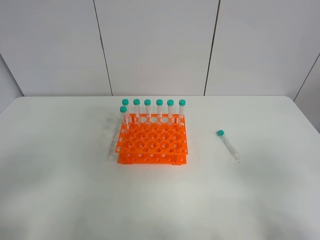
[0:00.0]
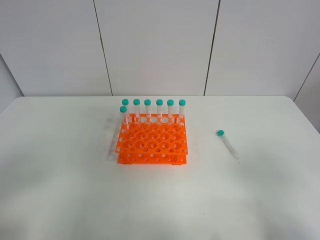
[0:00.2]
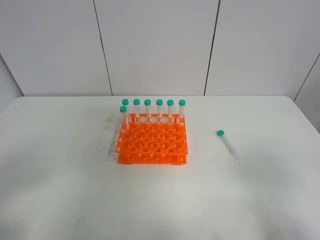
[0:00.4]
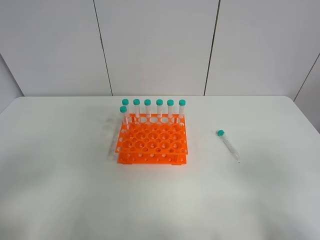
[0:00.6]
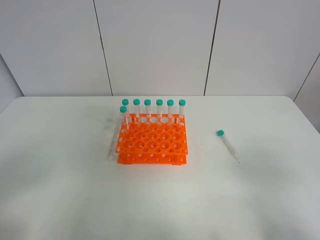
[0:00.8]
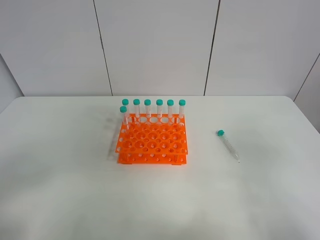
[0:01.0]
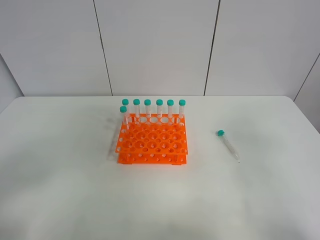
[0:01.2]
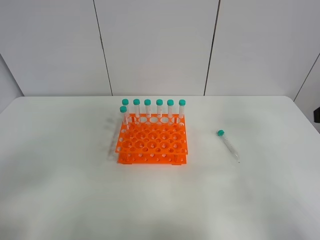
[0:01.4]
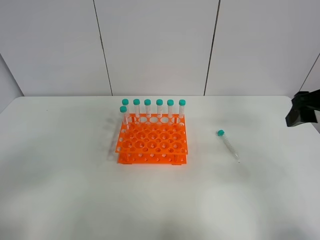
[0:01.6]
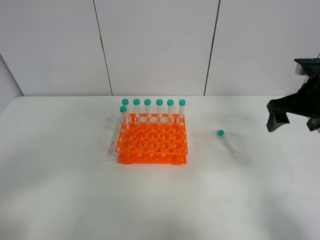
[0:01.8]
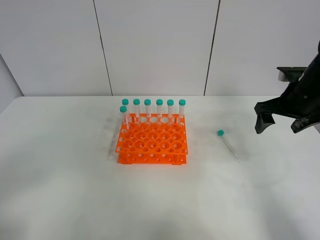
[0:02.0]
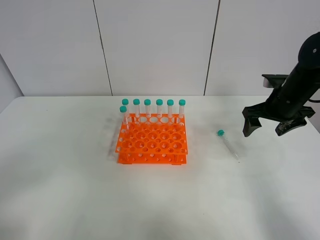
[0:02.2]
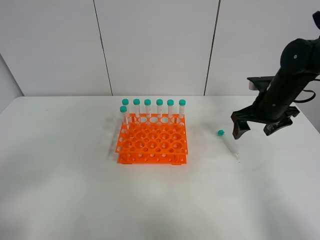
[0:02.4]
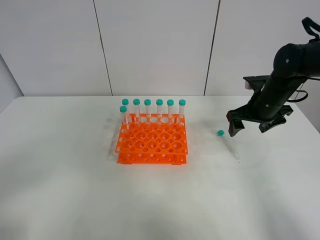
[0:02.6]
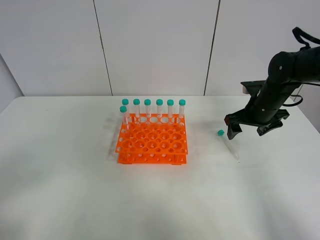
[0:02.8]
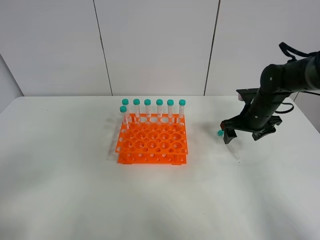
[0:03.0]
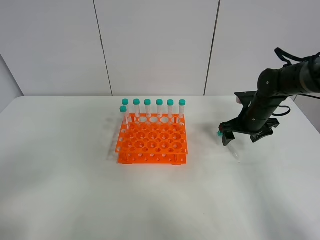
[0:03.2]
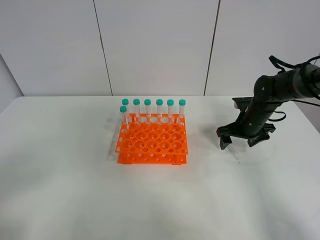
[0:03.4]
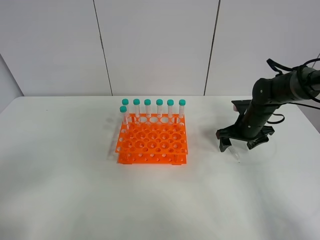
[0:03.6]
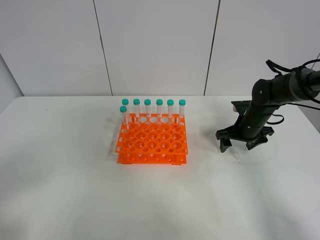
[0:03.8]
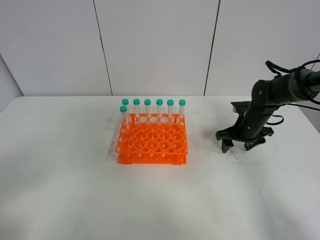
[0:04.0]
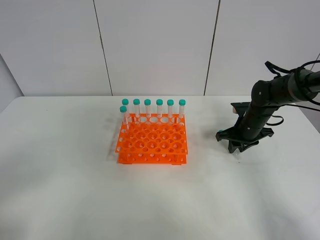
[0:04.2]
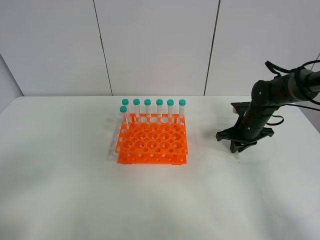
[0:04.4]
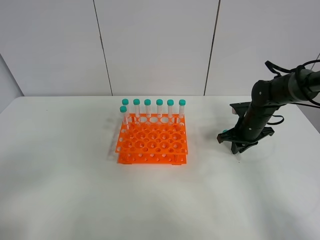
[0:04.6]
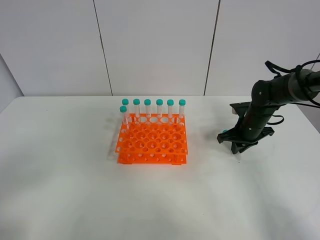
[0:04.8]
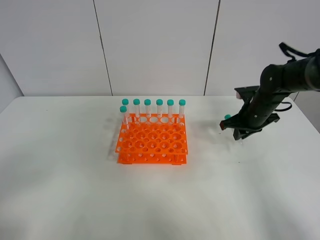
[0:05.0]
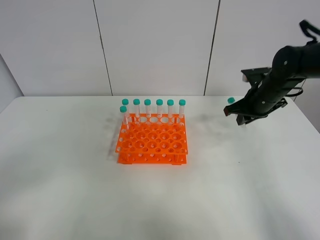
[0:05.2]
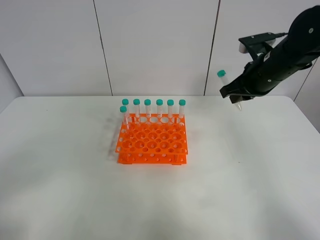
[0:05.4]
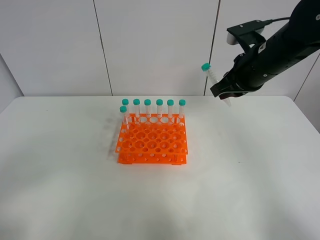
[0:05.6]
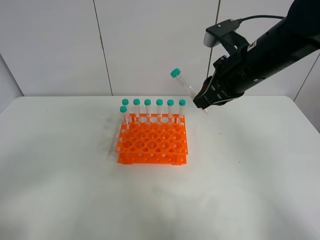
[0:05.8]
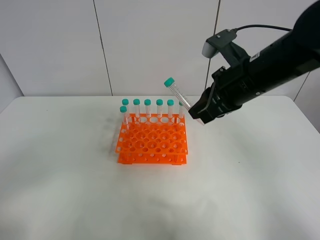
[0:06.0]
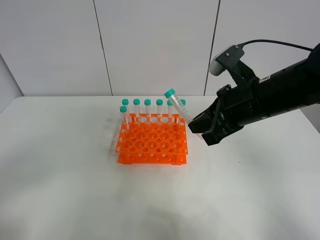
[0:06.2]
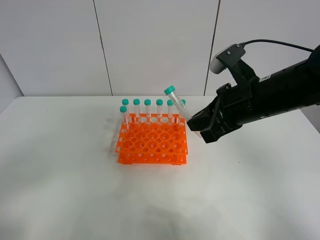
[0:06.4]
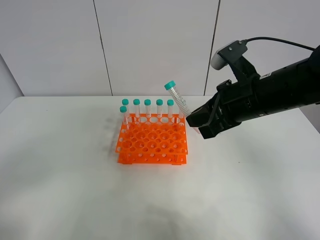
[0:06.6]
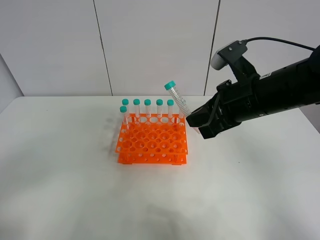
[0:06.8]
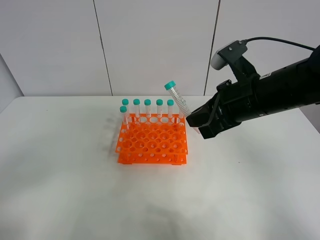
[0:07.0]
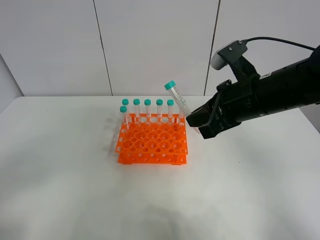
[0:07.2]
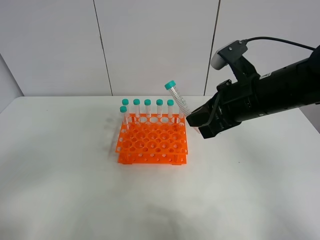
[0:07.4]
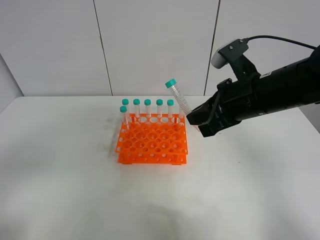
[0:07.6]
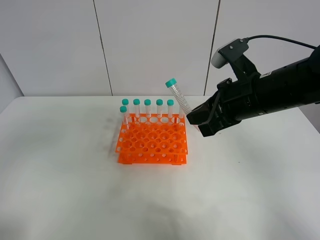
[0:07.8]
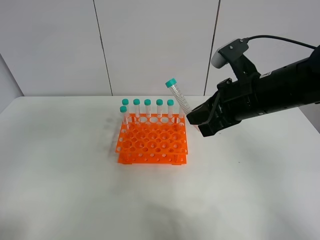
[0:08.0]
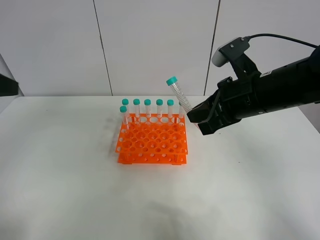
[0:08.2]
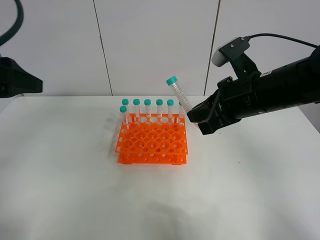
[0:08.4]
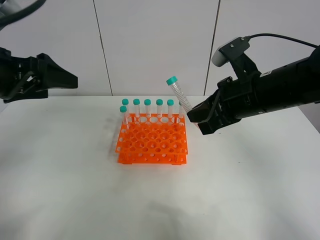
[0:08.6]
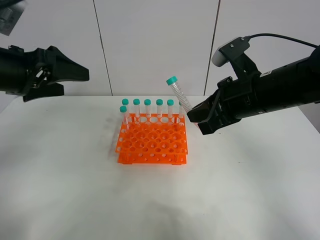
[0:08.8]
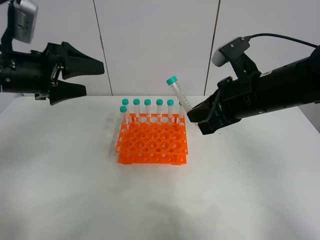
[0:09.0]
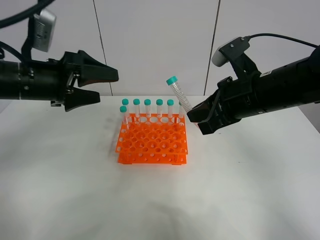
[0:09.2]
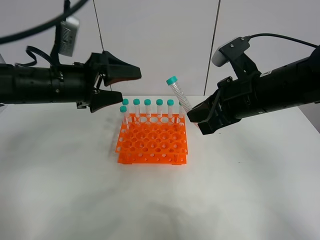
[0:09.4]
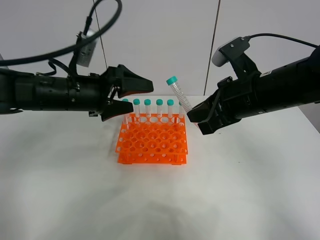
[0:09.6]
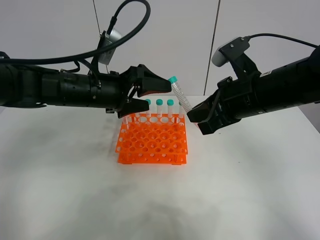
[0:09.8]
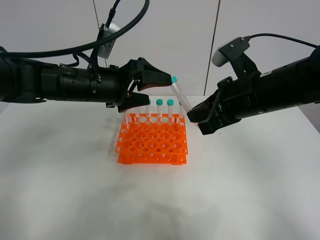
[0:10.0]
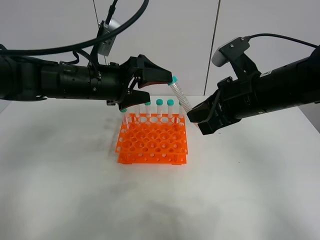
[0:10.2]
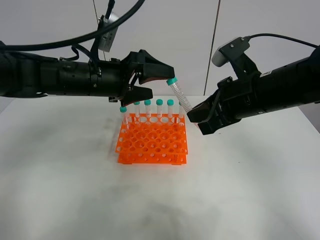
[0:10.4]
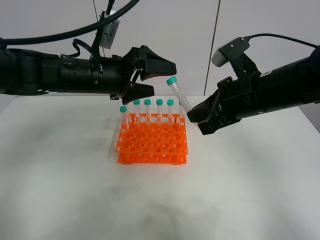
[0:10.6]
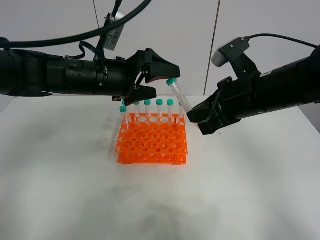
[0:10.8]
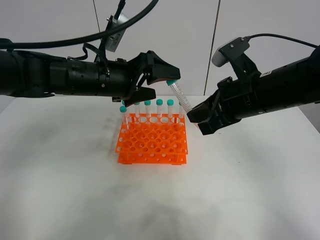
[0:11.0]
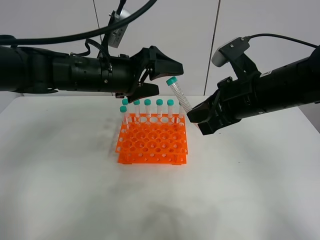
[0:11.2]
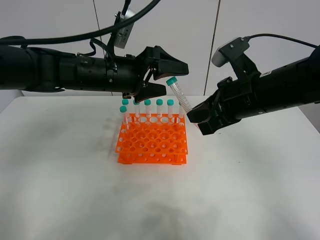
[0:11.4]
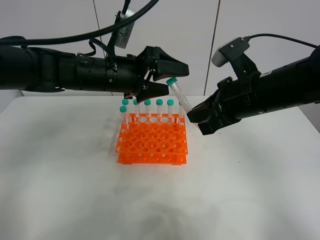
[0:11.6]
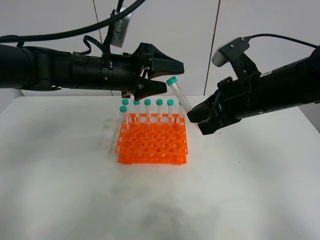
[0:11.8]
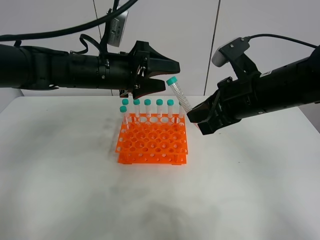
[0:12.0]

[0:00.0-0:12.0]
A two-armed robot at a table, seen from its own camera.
Task of the whole recording: Put the test tube on the table back onto the test tube rack.
Step, 0:00.0 to 0:05.2: Pick up the test tube with the right gripper.
0:00.0 to 0:01.6: The right gripper travels forward by some 25 cm.
0:01.6 to 0:03.0: The right gripper travels downward and forward by roughly 20 cm.
0:03.0 to 0:04.4: The right gripper closes its fingers.
0:04.4 to 0:06.0: The right gripper shifts about 25 cm upward, backward and to the left.
0:06.0 to 0:07.6: The grippers stay close to where they were, moving slightly.
0:07.6 to 0:09.0: The left gripper goes approximately 25 cm forward.
0:09.0 to 0:10.4: The left gripper goes about 10 cm to the right.
0:10.4 to 0:12.0: The left gripper closes up.

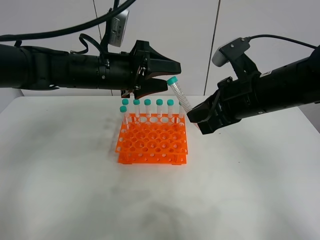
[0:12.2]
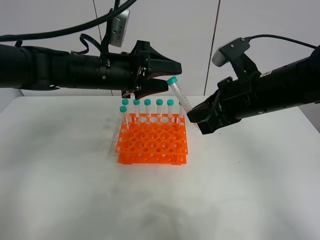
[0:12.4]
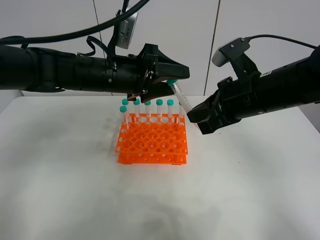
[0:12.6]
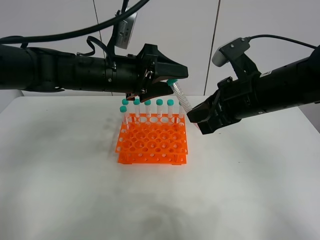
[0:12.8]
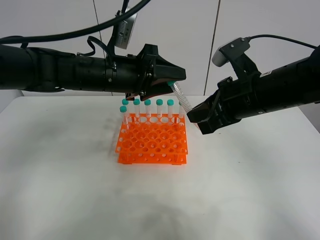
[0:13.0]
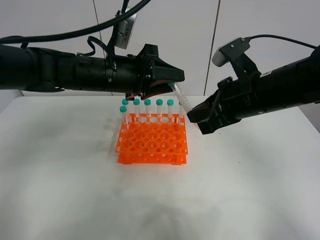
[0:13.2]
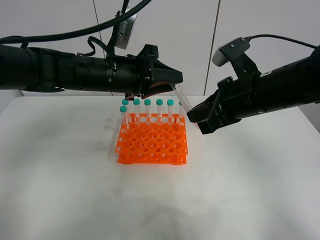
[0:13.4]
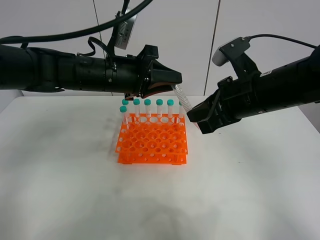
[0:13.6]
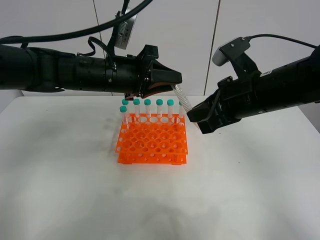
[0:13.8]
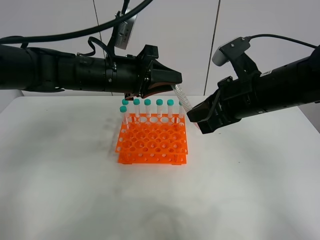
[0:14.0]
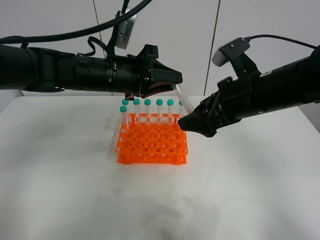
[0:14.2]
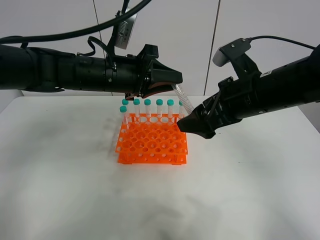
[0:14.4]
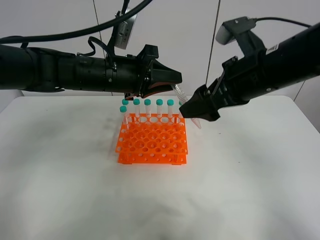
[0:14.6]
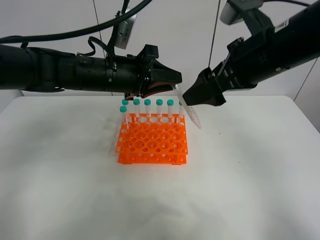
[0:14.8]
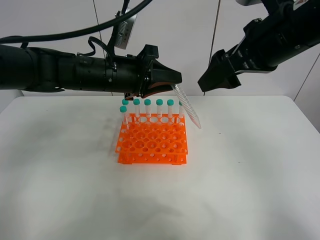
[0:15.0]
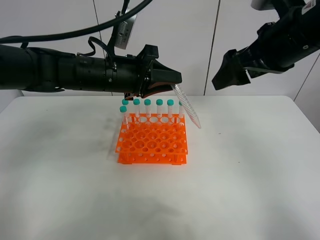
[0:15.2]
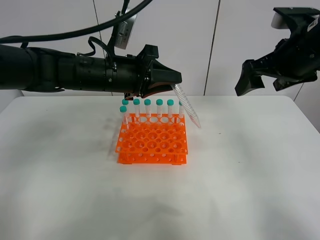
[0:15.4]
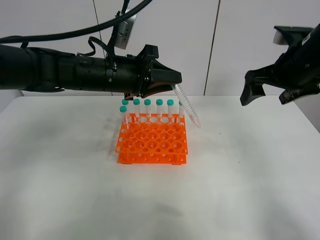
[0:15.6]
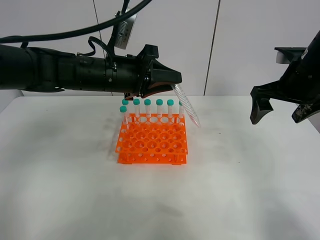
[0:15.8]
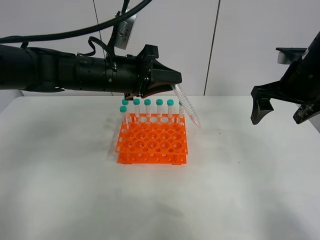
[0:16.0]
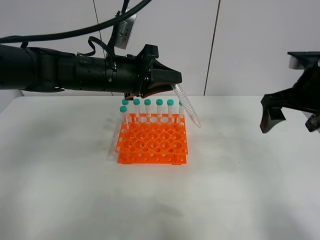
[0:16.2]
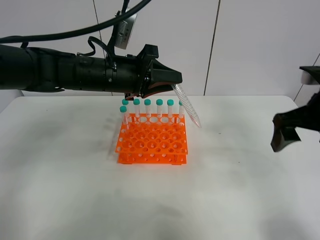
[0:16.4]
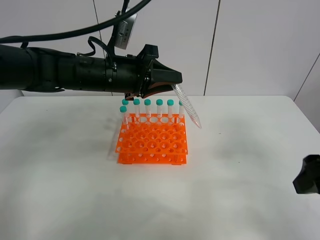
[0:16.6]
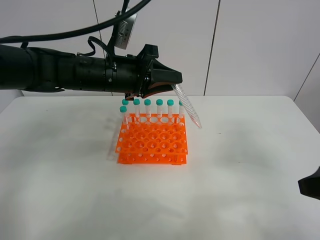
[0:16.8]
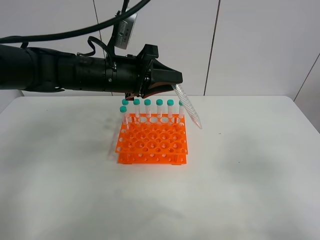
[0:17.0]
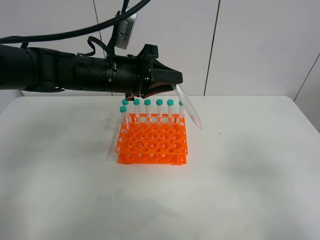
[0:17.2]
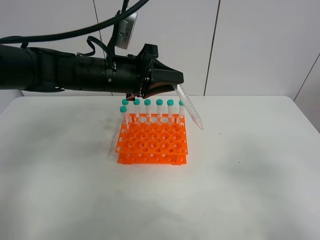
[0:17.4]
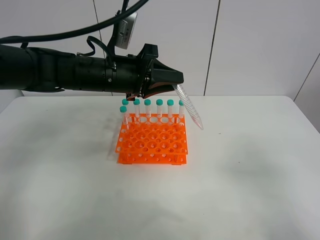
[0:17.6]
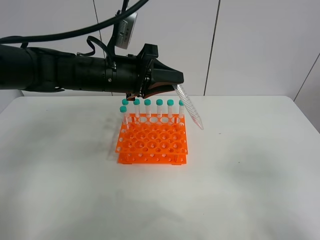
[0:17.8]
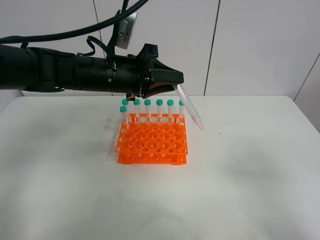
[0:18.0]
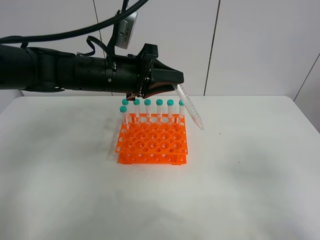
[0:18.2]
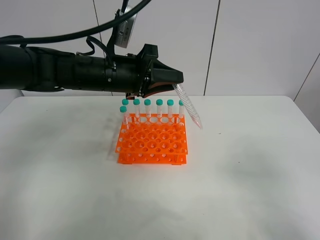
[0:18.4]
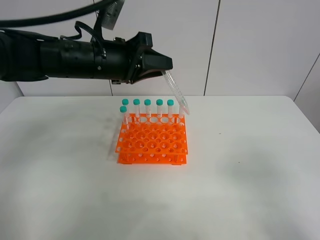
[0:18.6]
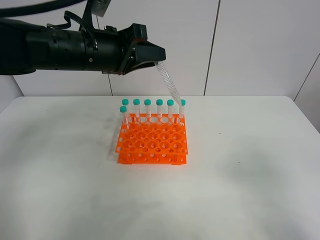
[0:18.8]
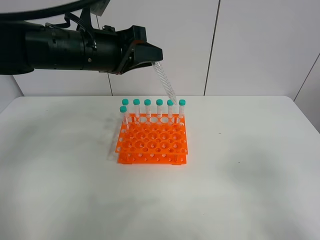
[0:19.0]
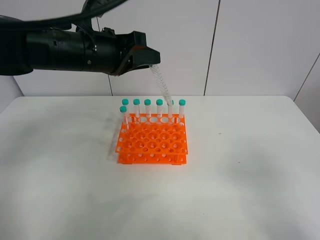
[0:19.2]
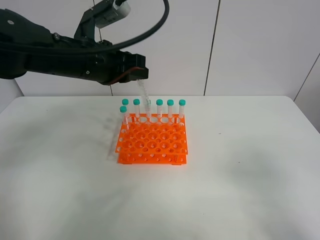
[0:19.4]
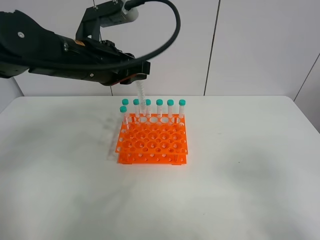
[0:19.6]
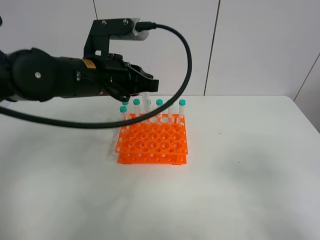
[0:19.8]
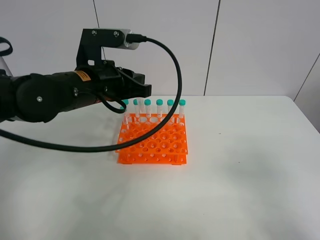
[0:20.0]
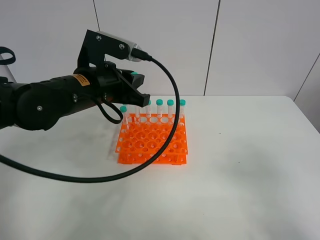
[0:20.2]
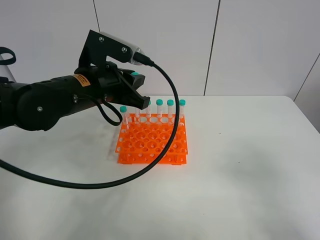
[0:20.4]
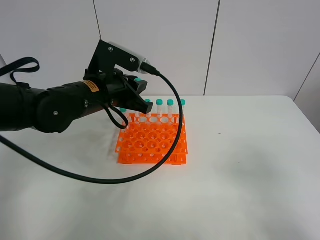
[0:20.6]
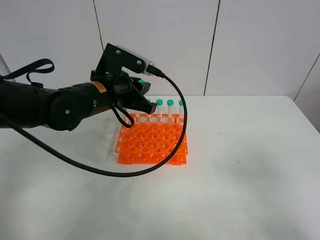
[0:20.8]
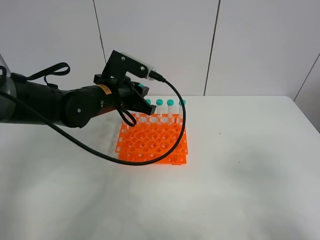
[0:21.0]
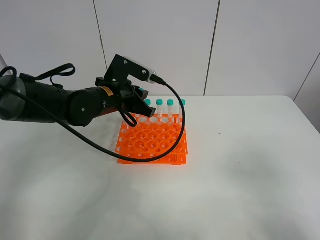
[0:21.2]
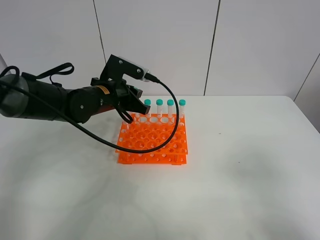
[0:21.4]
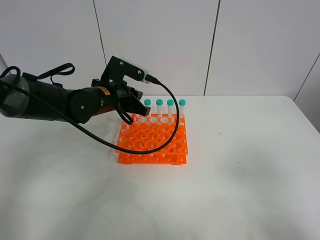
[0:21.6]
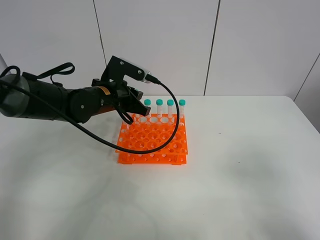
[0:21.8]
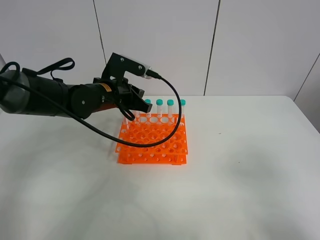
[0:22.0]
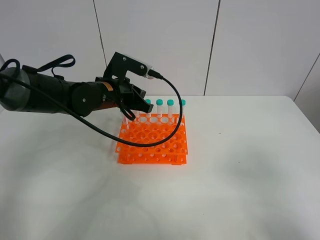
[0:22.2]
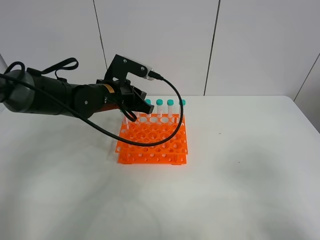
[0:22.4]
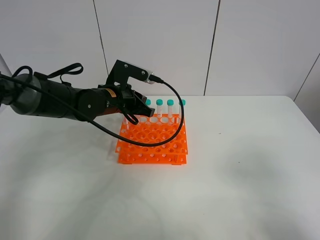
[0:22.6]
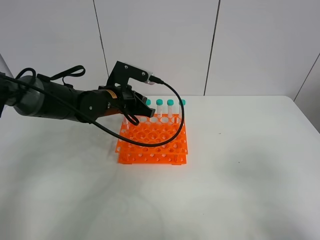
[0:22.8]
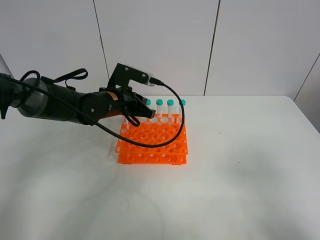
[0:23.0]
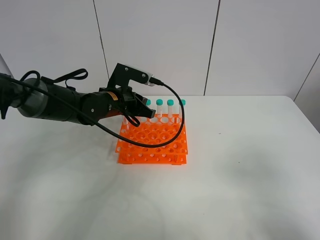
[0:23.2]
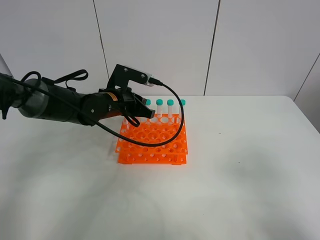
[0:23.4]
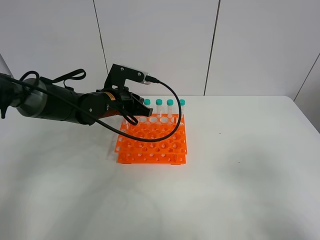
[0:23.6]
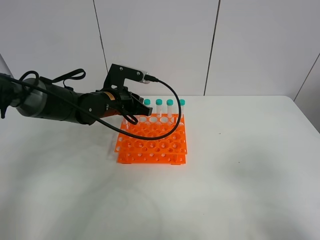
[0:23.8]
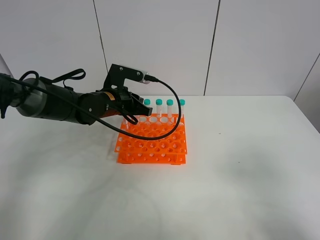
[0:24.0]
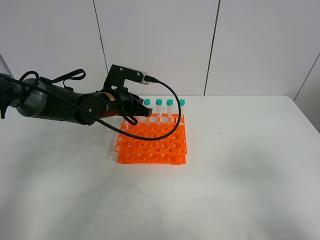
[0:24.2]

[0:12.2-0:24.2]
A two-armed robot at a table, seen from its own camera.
Task of the whole recording: Put the test tube on the table back onto the test tube rack.
Step, 0:12.2 to 0:15.4: Move the test tube from the right gripper to the left gripper.
0:12.2 to 0:13.8: The left gripper closes up.
0:13.8 to 0:15.2: The right gripper shifts roughly 10 cm upward, and opens its fingers.
0:15.2 to 0:16.6: The right gripper heads backward, downward and to the right, covering roughly 20 cm.
0:16.6 to 0:18.2: The right gripper travels backward by about 15 cm.
0:19.8 to 0:21.2: The left gripper travels downward and forward by approximately 10 cm.
0:21.2 to 0:24.2: The grippers make only small movements.
